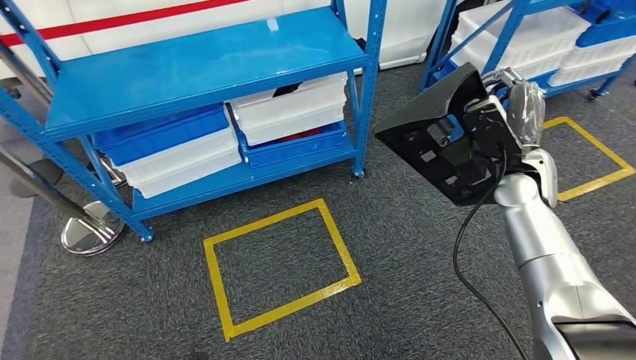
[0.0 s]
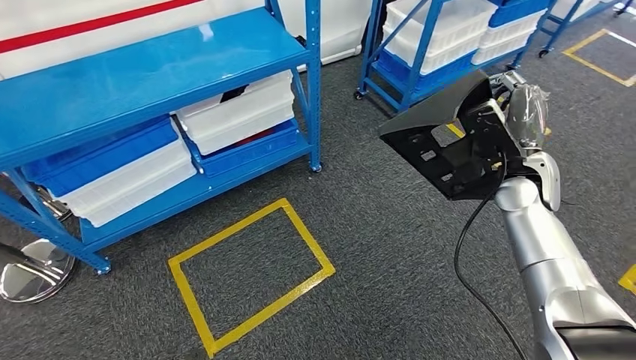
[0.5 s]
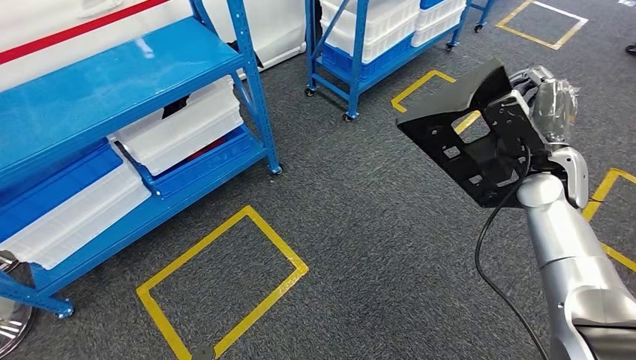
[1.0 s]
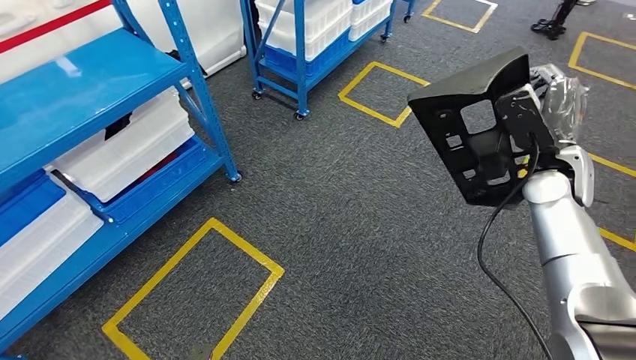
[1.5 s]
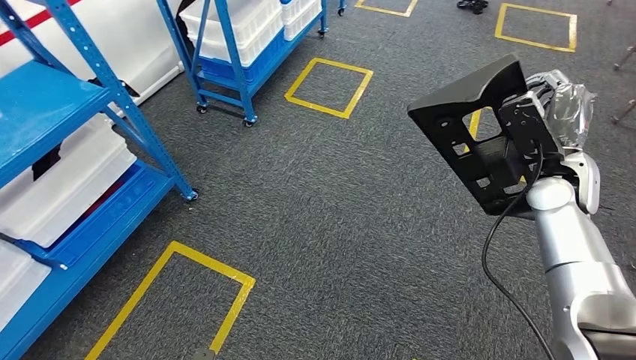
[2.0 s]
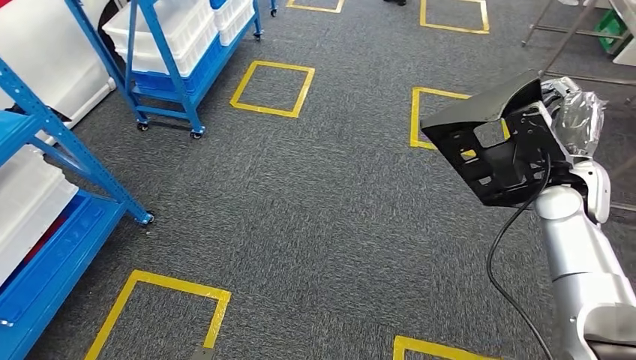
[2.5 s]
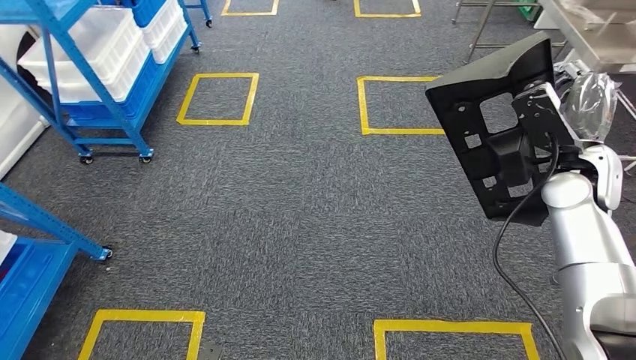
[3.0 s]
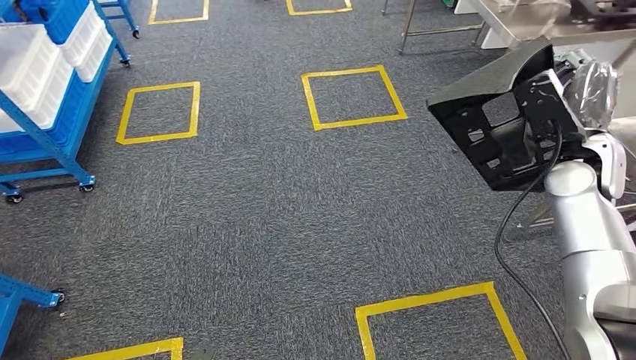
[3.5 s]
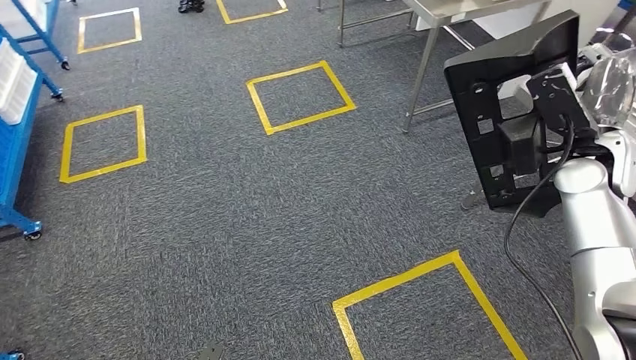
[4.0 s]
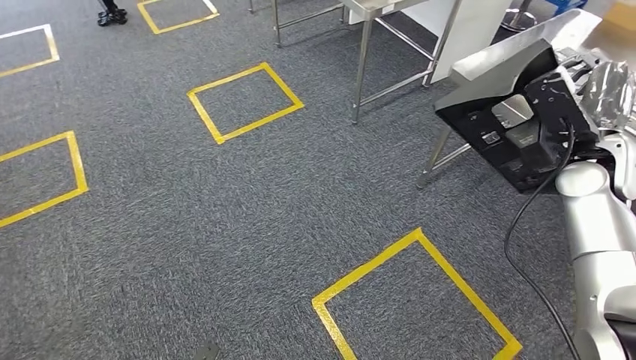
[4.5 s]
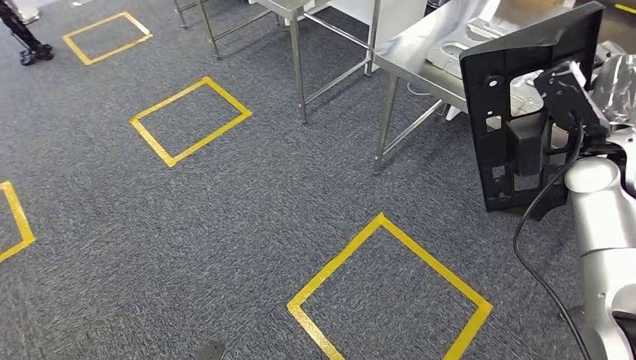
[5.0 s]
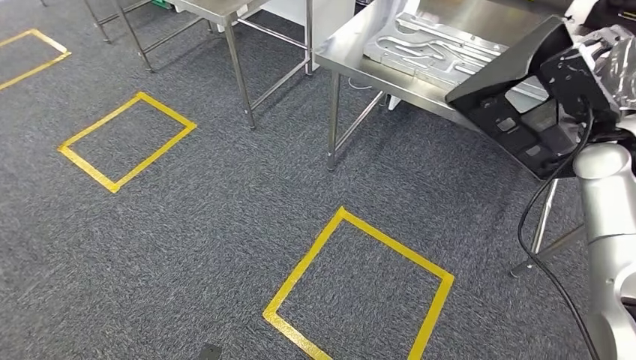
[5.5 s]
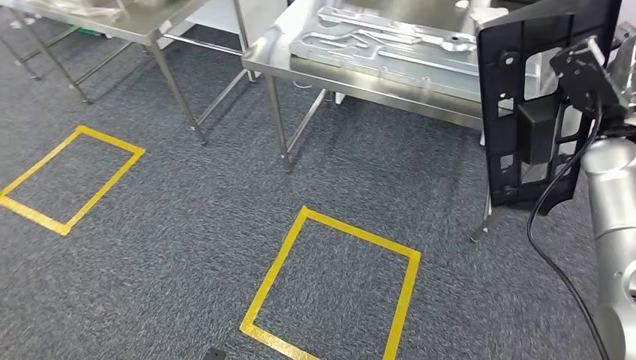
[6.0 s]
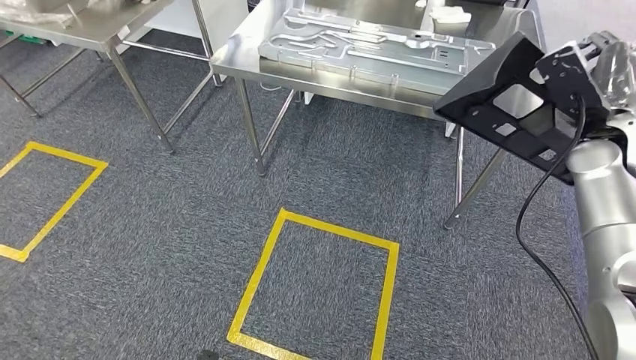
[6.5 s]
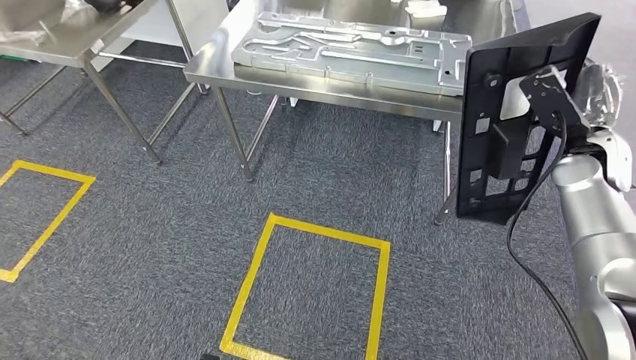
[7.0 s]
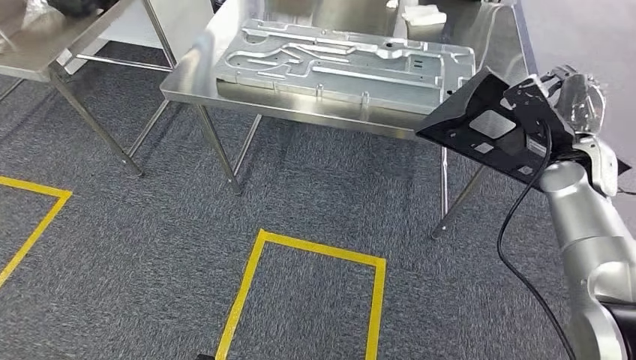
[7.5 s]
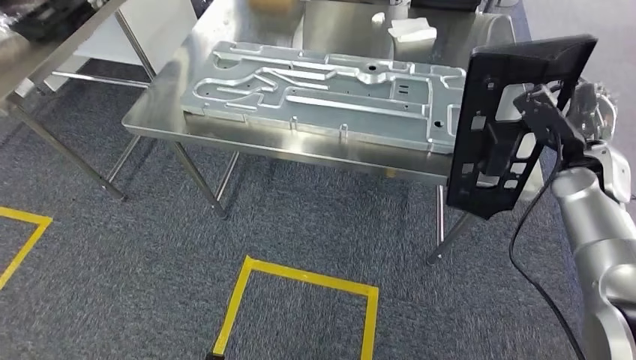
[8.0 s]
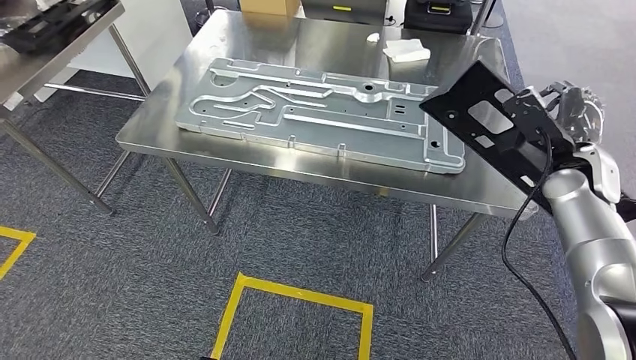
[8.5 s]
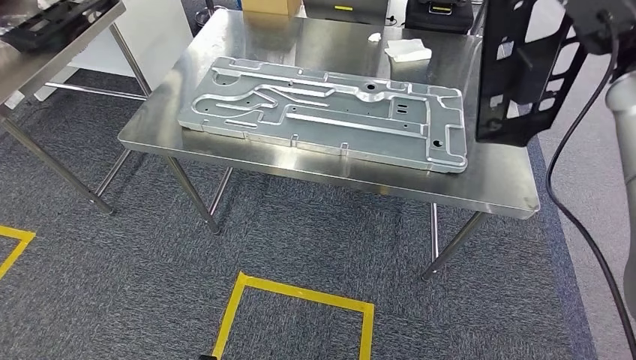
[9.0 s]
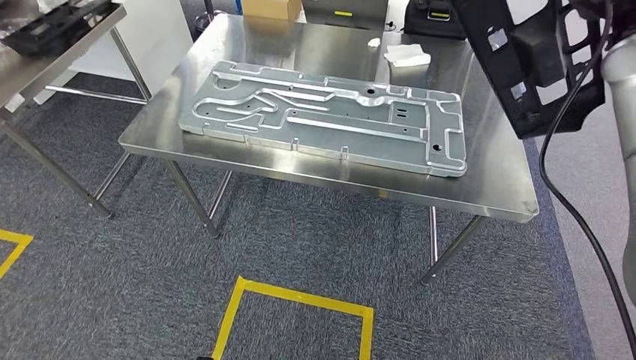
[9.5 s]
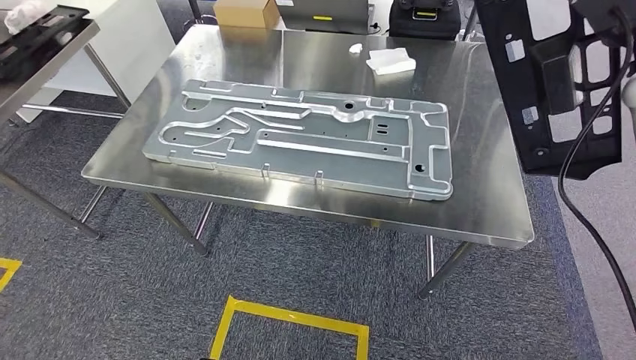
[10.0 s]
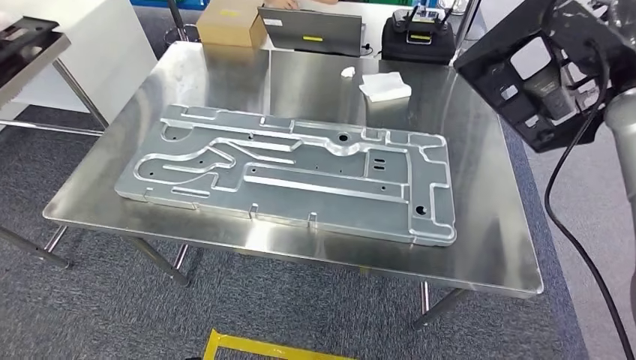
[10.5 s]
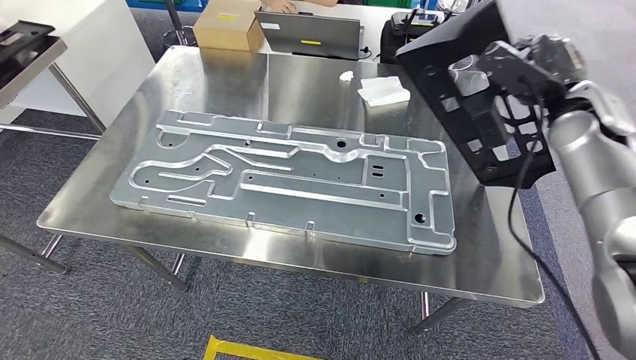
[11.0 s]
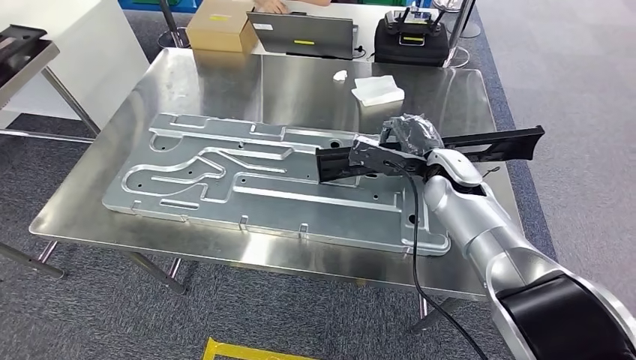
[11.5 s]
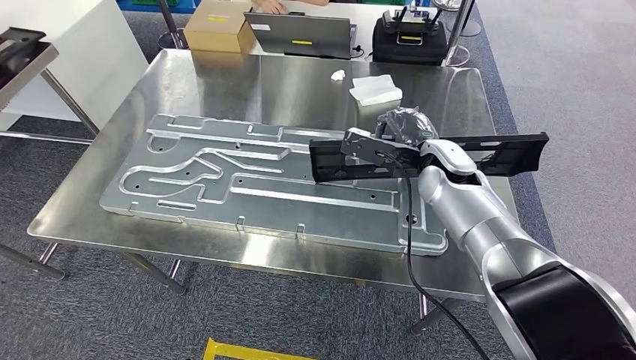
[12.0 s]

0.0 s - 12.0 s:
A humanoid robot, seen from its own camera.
Step, 2.0 s - 8.0 s: Move the large material to the workbench.

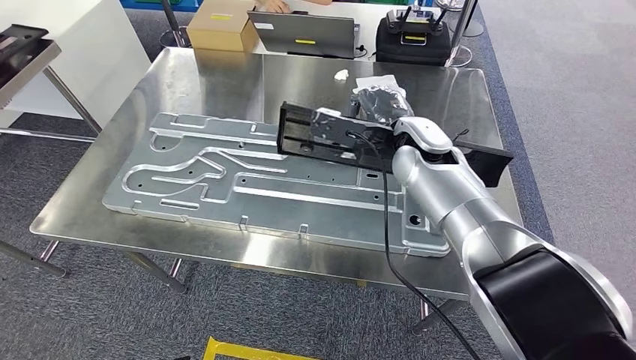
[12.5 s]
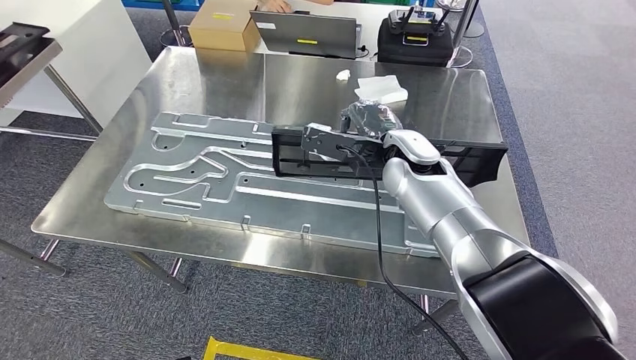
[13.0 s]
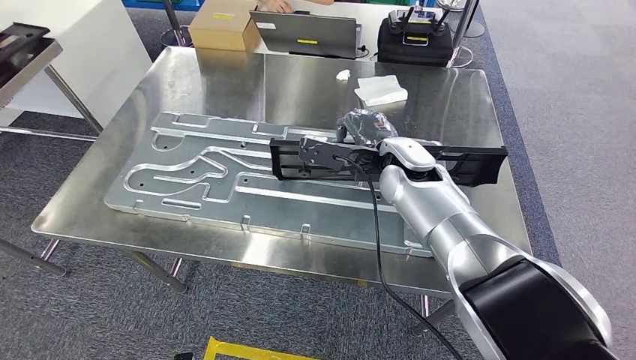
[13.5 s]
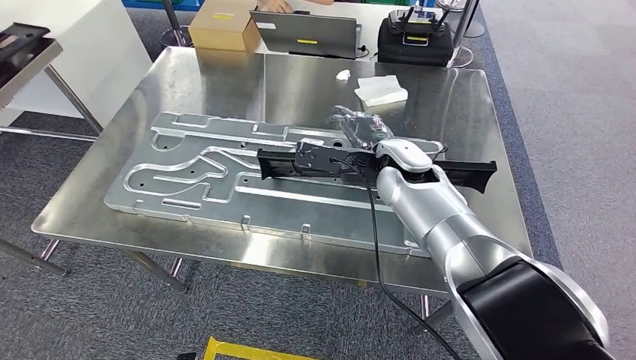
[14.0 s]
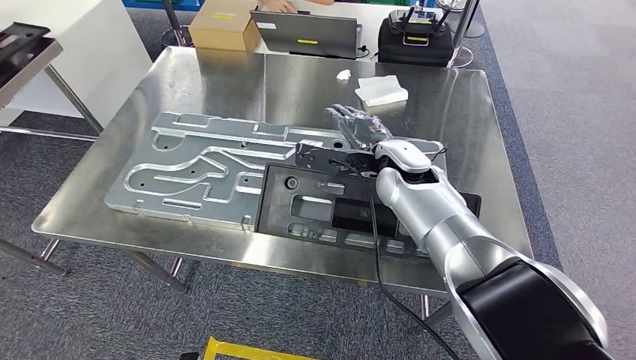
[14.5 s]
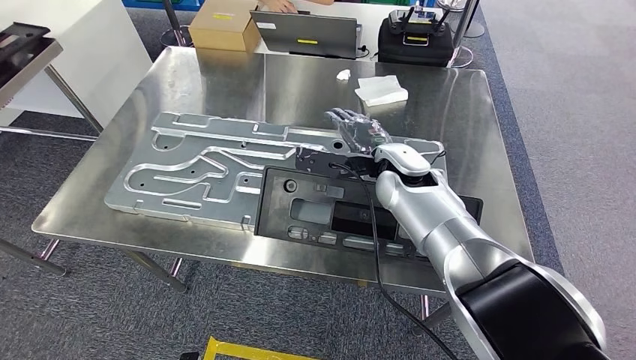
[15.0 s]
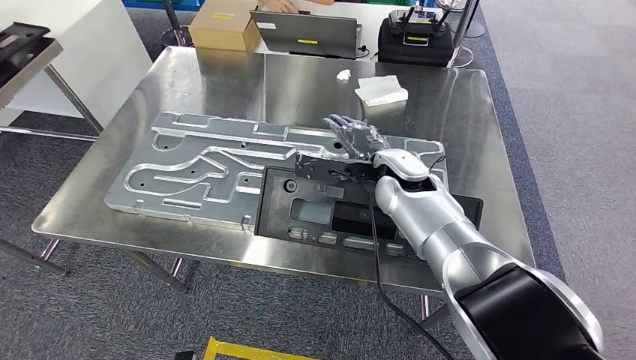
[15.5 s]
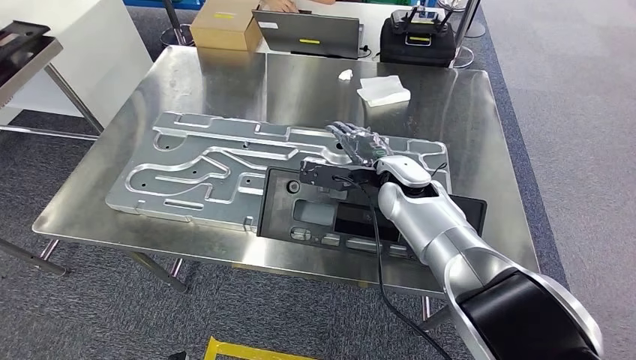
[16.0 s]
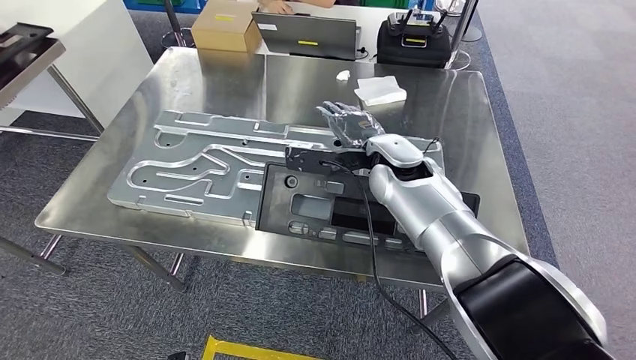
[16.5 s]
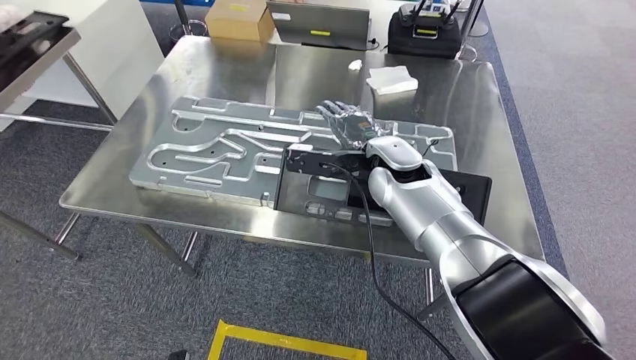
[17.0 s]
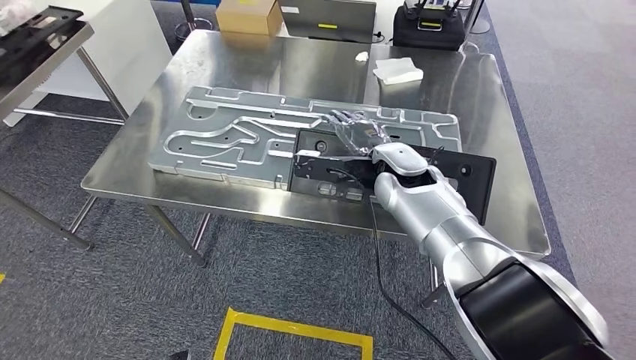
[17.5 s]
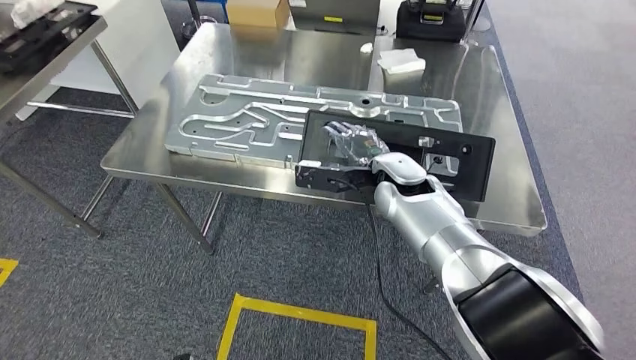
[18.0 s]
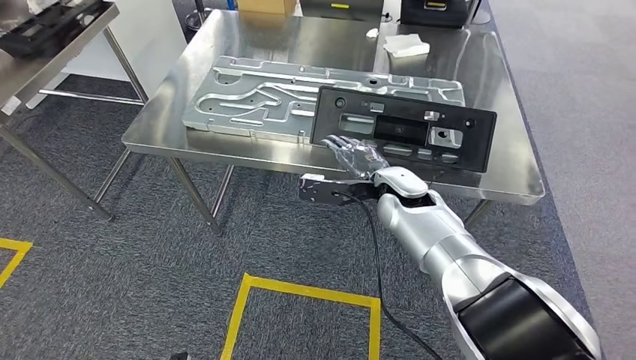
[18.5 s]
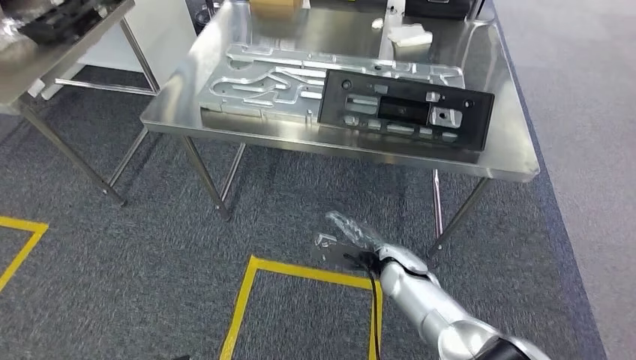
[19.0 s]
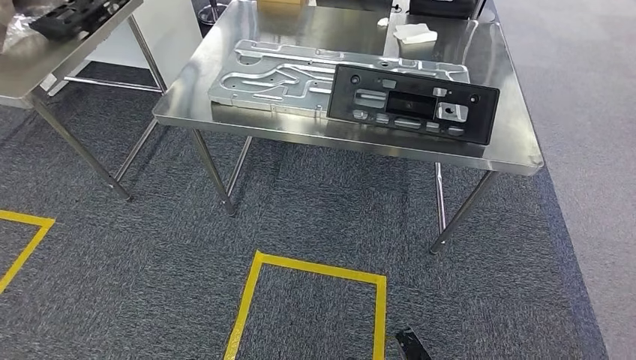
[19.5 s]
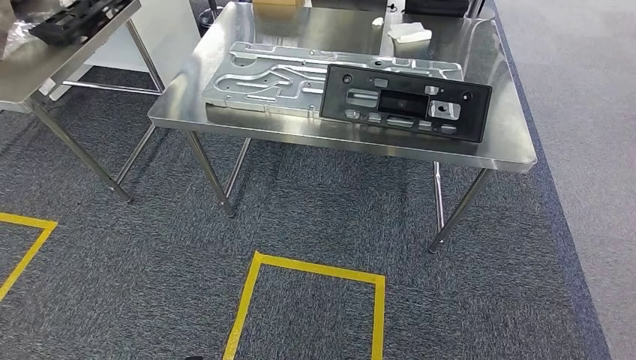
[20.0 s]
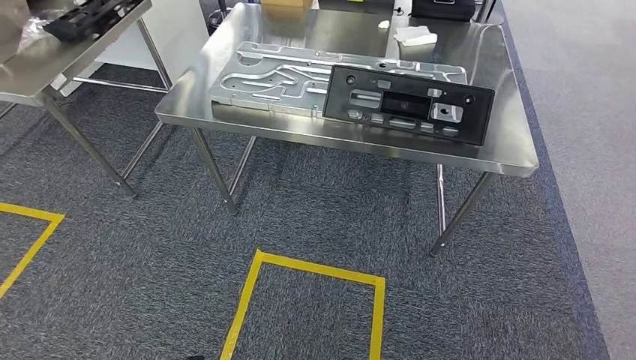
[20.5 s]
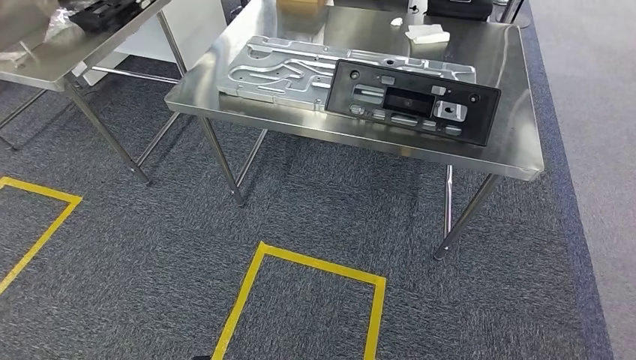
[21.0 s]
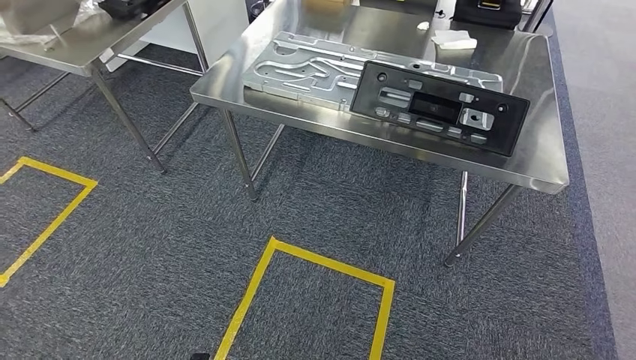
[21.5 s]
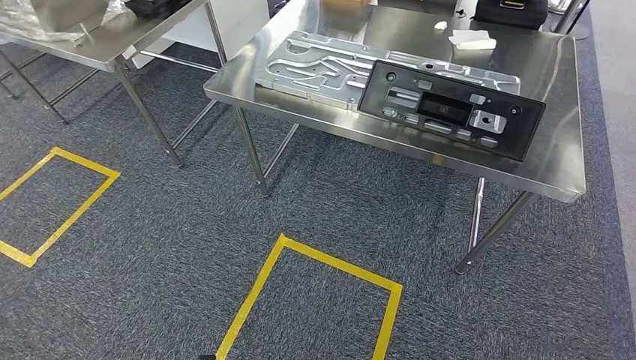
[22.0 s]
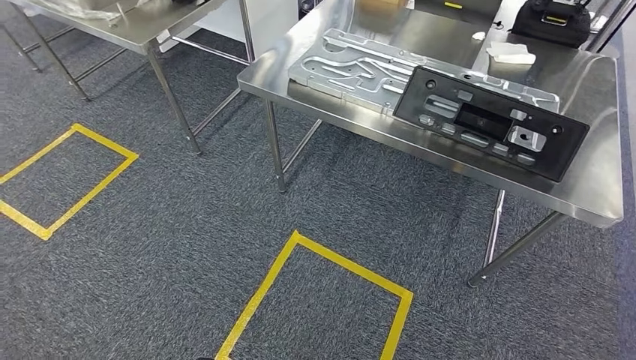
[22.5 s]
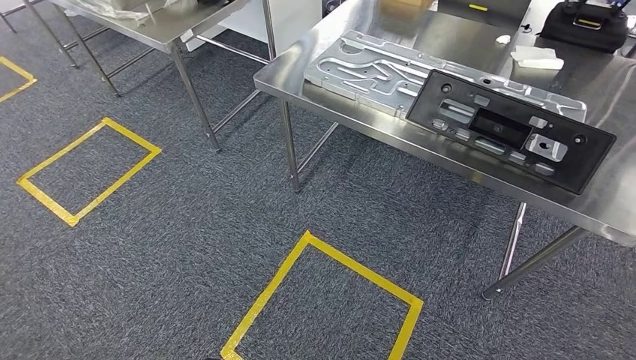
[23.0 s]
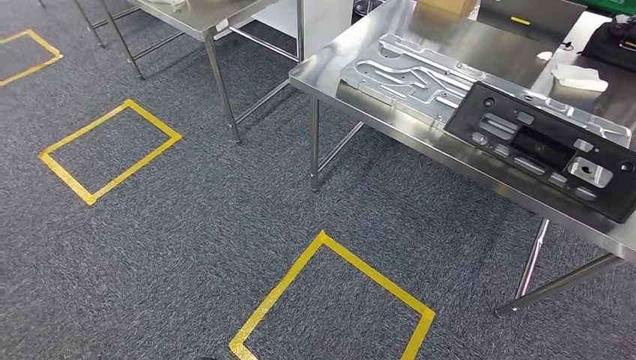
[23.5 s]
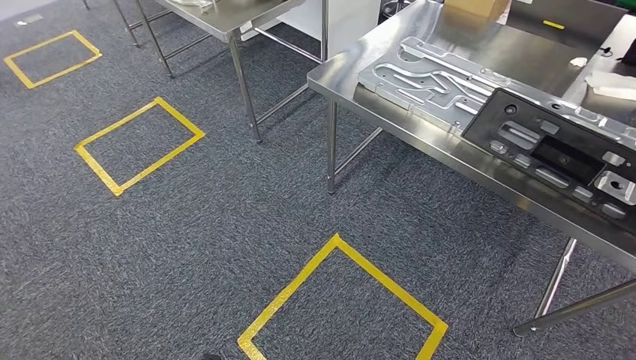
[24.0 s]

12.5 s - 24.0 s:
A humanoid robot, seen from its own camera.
Step, 13.5 s - 17.0 s: Insert the large material into the corresponding slot on the workbench.
14.5 s - 16.5 s: The hands move only a little.
